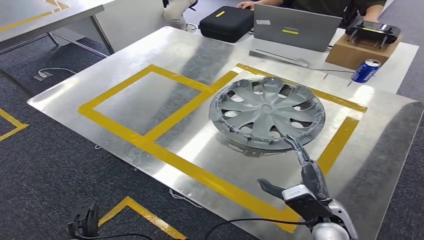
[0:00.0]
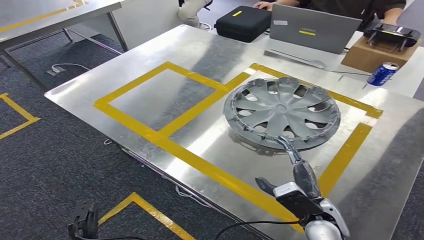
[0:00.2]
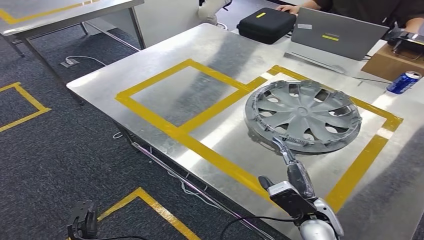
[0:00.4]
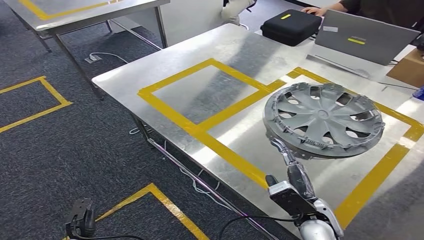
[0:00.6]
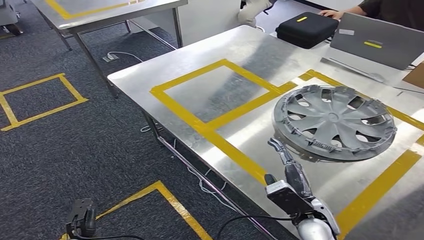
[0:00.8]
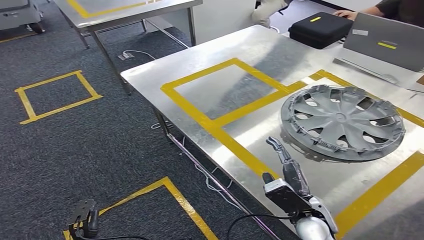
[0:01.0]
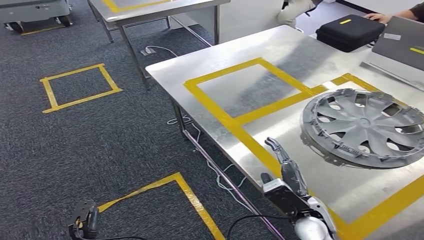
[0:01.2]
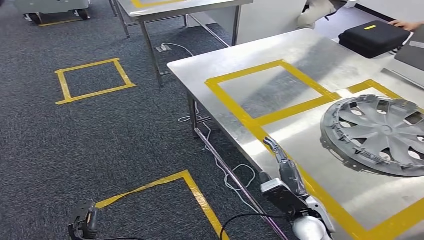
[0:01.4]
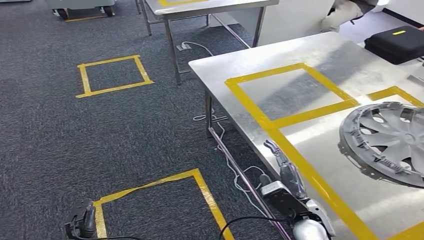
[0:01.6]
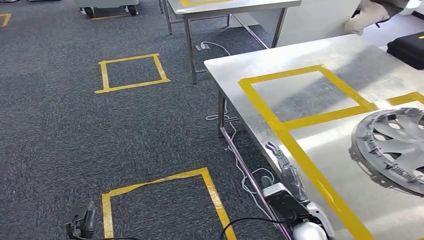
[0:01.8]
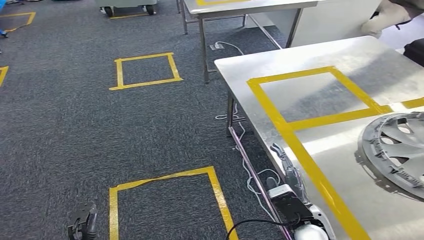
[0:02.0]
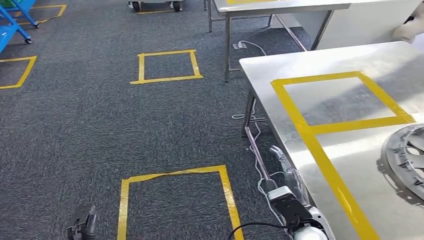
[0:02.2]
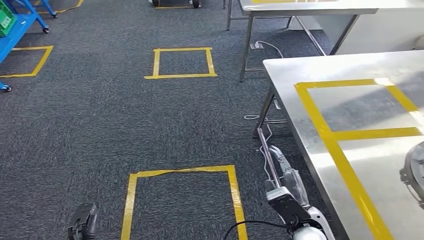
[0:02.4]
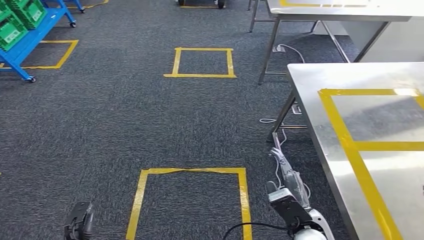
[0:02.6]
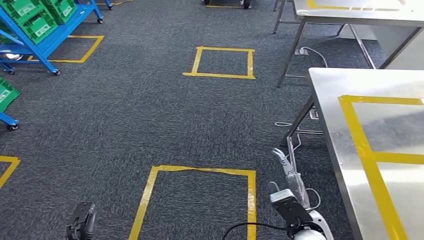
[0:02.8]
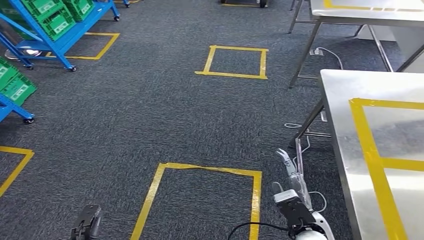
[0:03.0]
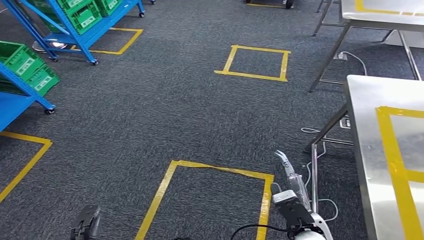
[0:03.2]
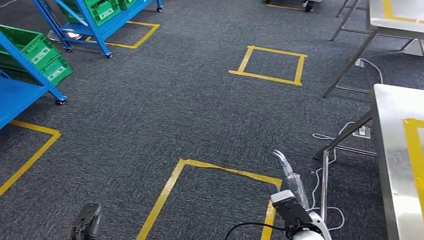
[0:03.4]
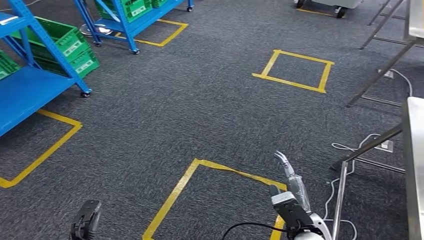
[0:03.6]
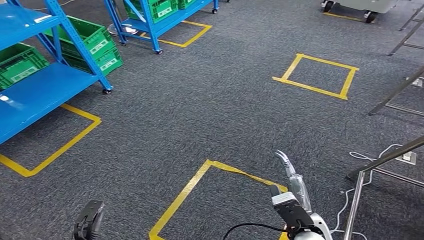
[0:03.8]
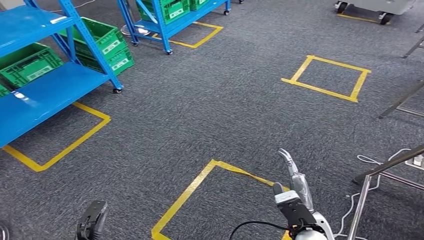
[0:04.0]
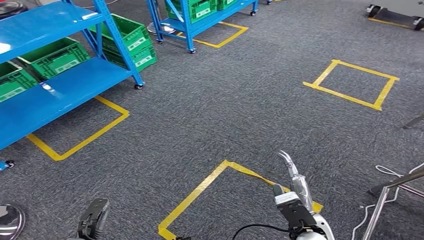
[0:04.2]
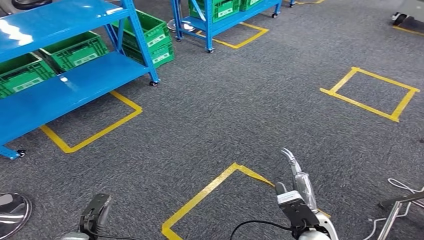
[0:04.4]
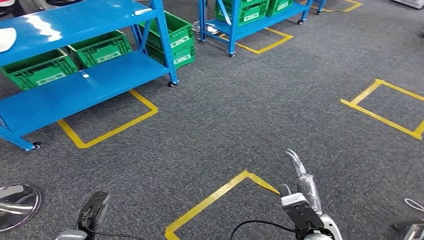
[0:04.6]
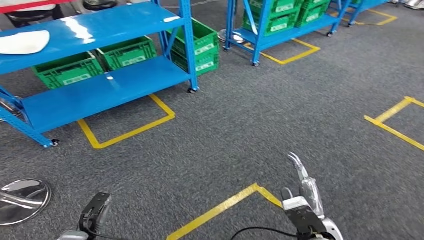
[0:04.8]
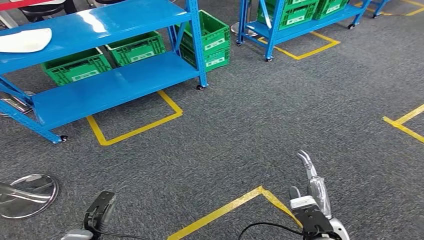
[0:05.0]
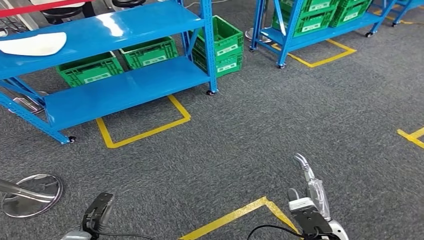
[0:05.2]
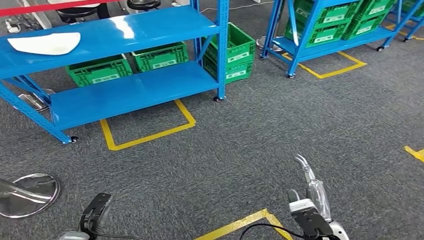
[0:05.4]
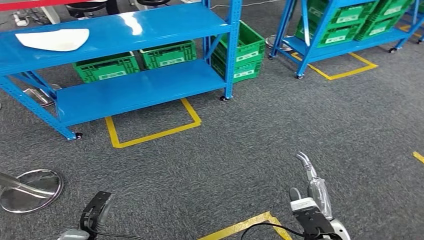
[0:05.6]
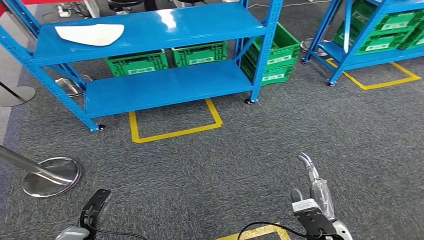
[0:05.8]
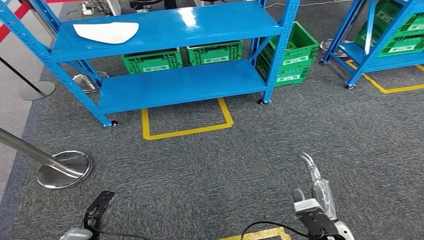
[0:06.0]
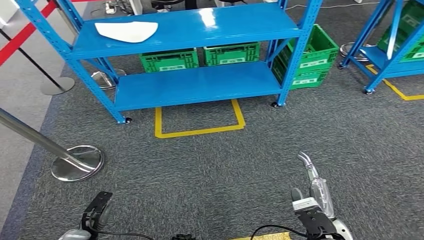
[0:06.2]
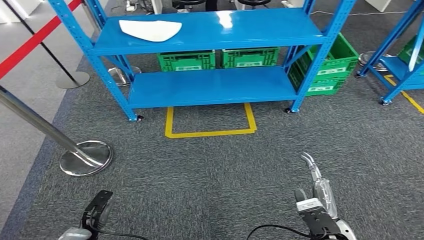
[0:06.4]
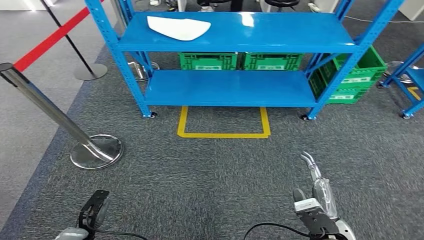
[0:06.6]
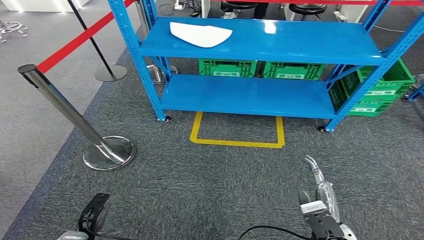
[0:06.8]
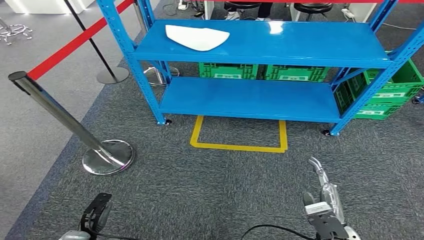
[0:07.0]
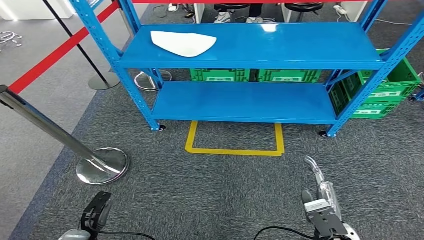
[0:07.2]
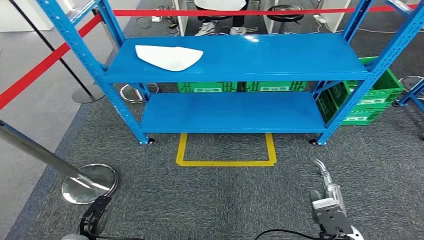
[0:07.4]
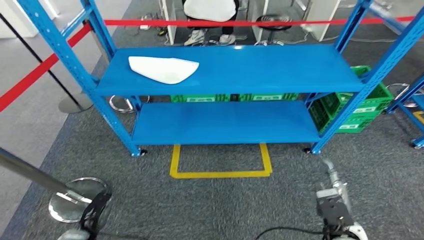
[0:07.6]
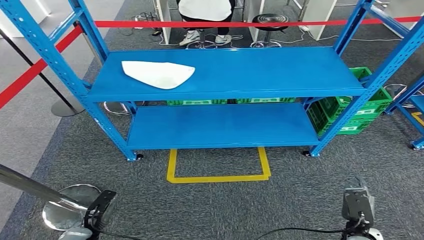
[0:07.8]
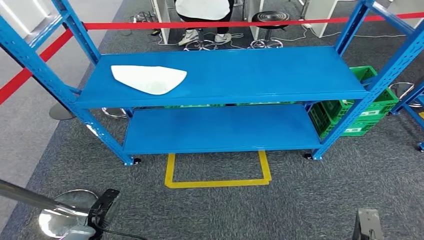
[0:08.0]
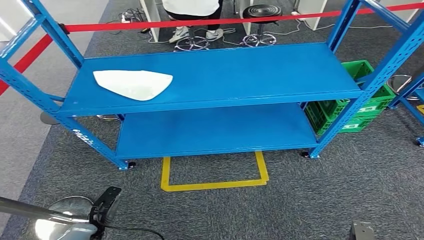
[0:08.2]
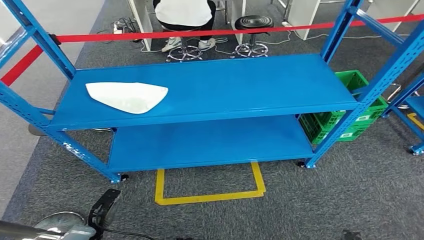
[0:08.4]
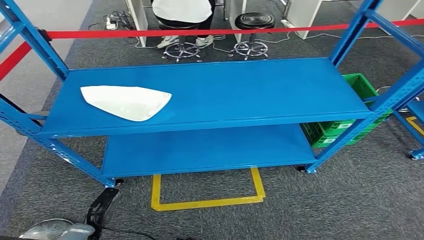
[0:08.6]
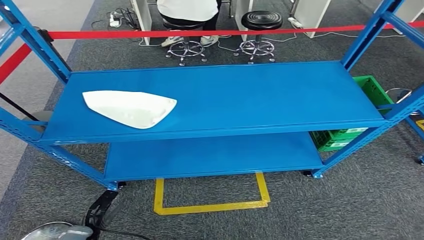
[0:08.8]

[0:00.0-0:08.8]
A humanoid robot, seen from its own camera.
Step, 0:00.0 to 0:08.8: Move to the initial position at the workbench.

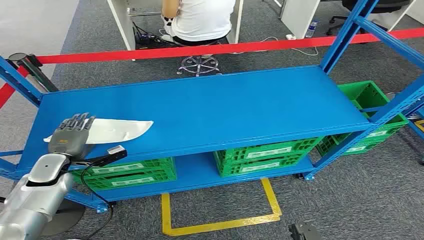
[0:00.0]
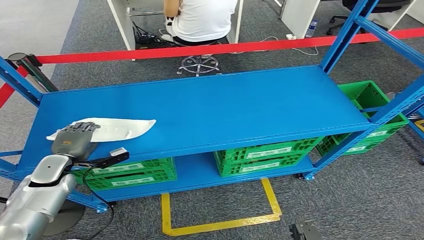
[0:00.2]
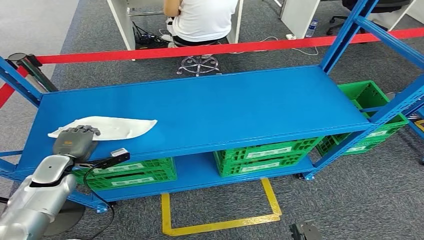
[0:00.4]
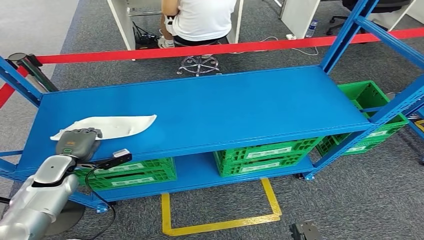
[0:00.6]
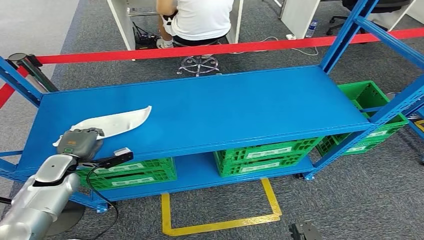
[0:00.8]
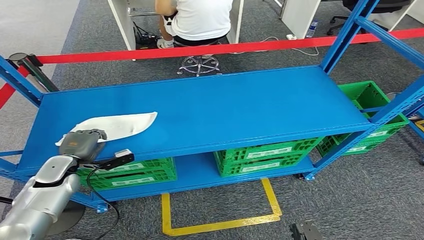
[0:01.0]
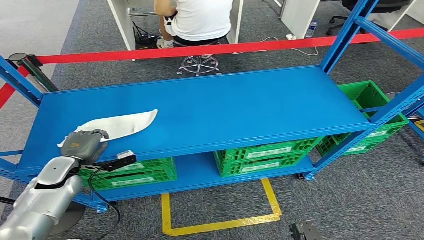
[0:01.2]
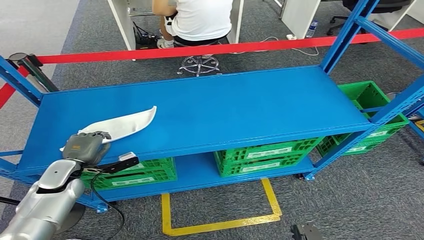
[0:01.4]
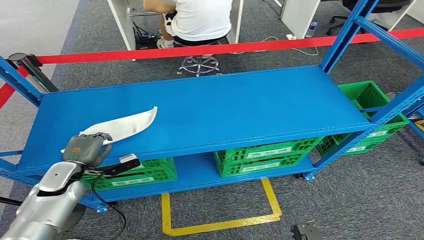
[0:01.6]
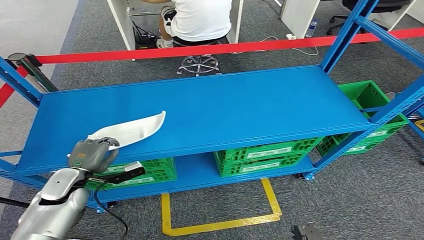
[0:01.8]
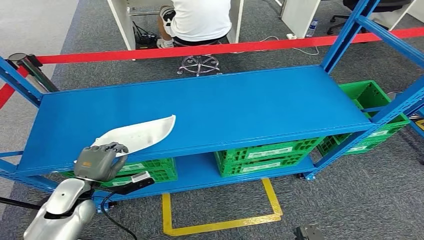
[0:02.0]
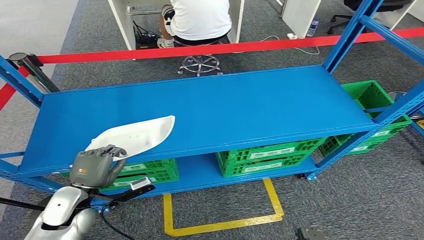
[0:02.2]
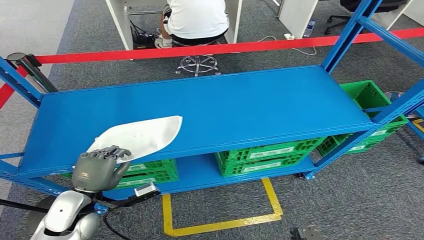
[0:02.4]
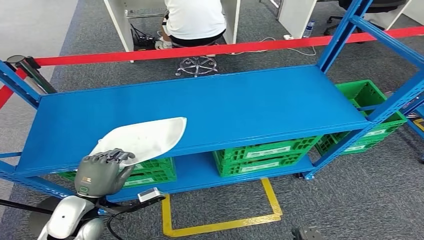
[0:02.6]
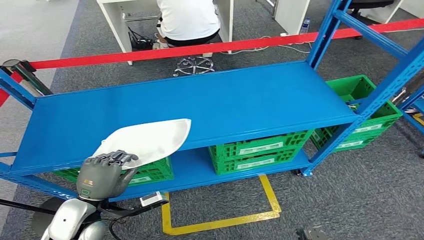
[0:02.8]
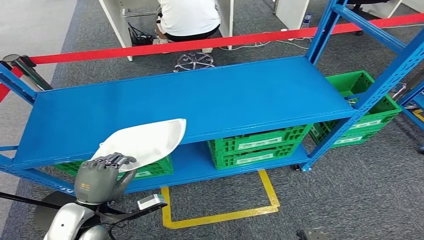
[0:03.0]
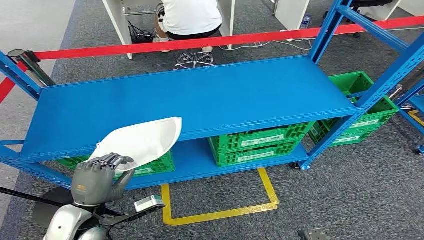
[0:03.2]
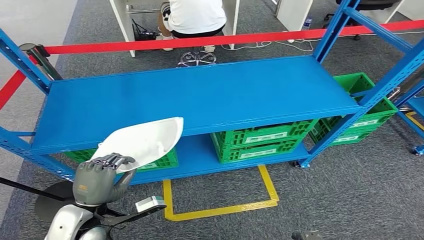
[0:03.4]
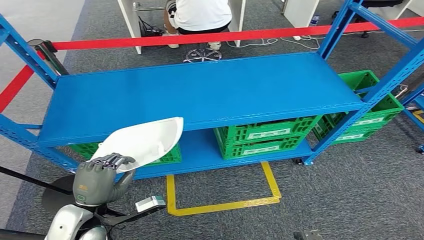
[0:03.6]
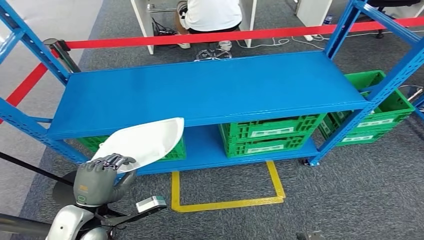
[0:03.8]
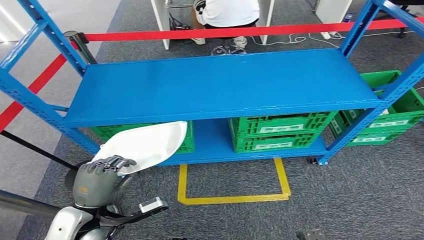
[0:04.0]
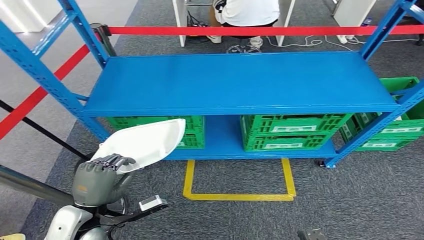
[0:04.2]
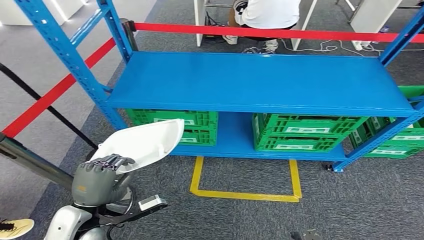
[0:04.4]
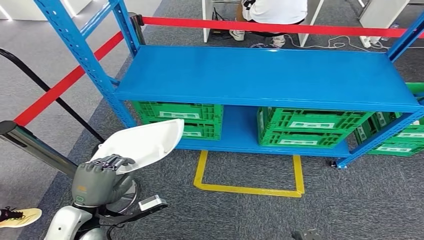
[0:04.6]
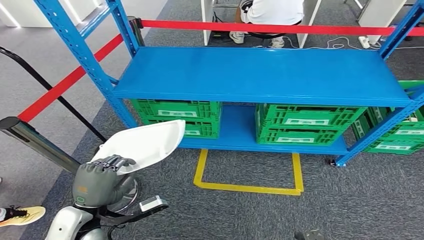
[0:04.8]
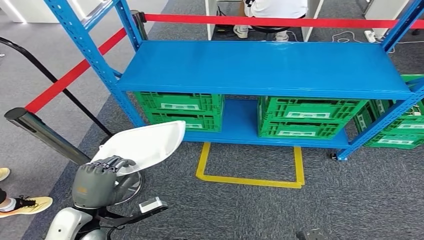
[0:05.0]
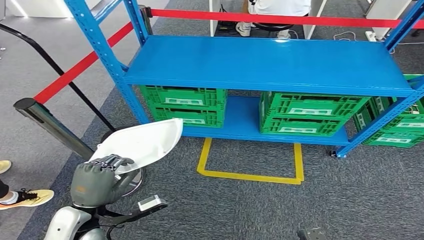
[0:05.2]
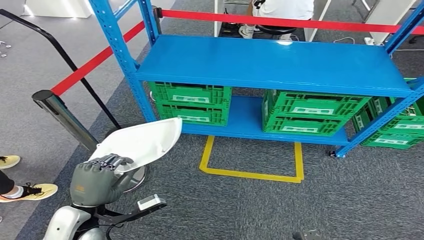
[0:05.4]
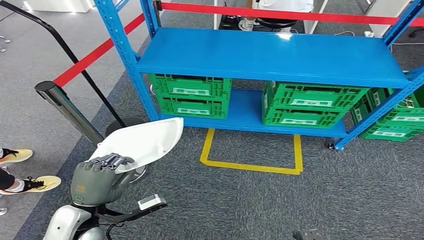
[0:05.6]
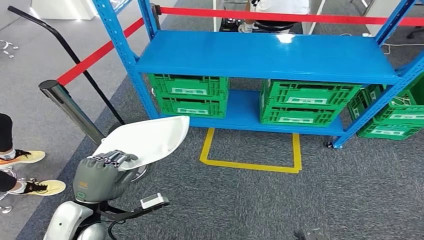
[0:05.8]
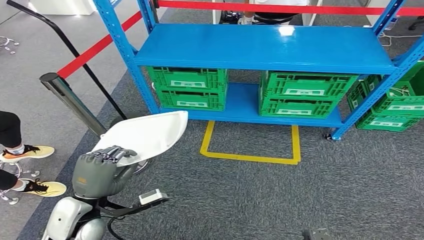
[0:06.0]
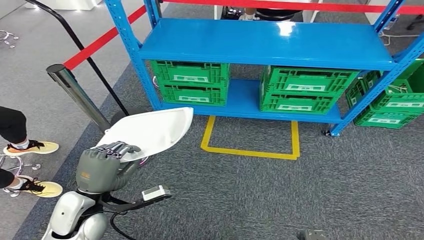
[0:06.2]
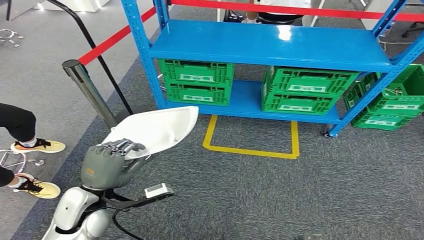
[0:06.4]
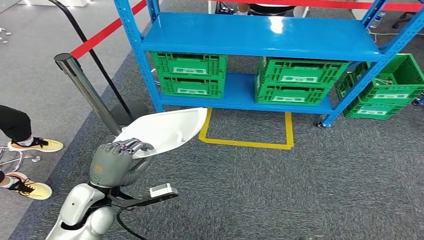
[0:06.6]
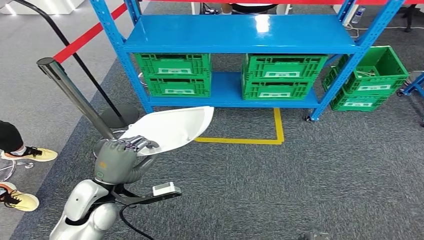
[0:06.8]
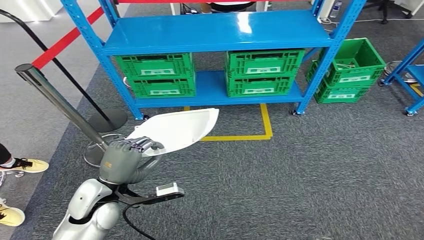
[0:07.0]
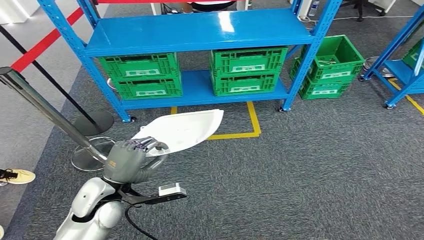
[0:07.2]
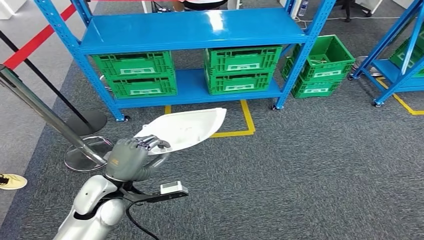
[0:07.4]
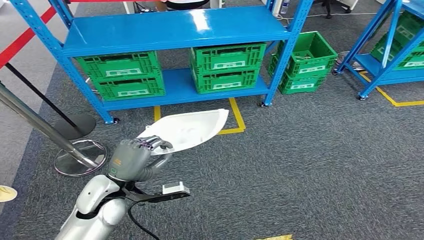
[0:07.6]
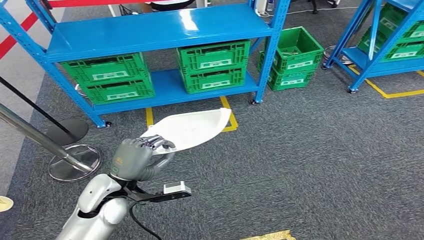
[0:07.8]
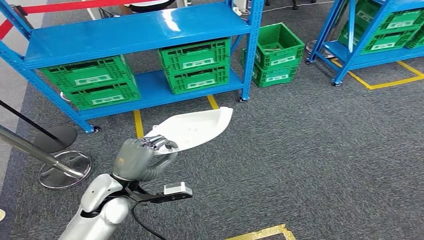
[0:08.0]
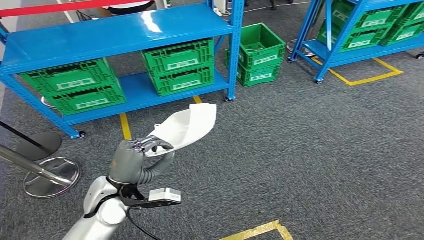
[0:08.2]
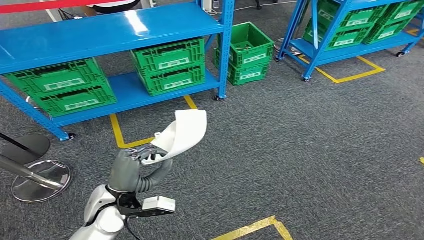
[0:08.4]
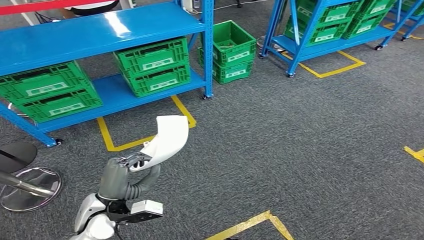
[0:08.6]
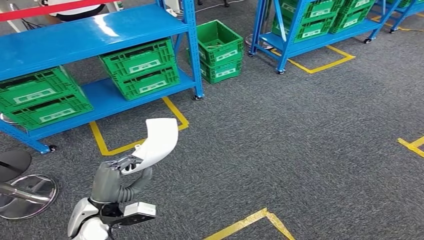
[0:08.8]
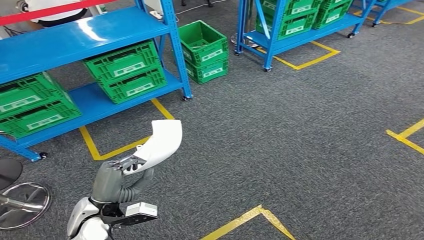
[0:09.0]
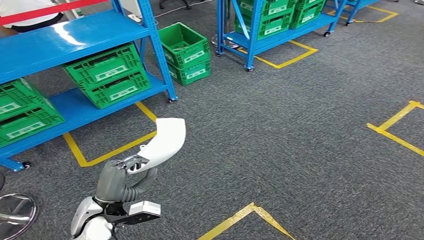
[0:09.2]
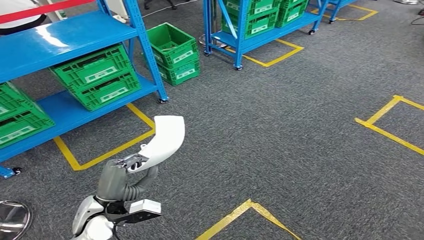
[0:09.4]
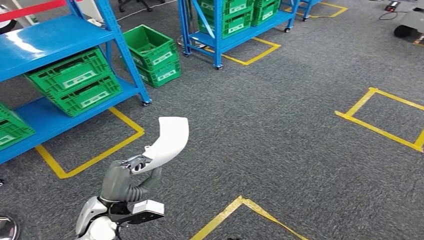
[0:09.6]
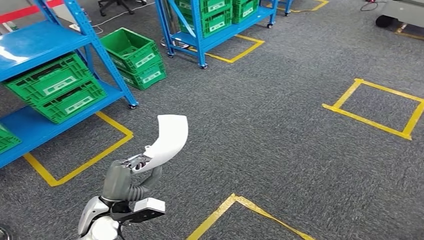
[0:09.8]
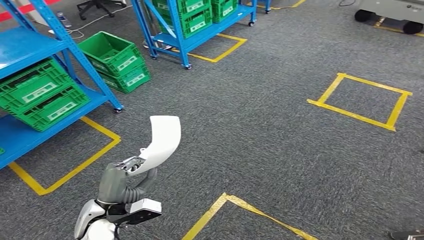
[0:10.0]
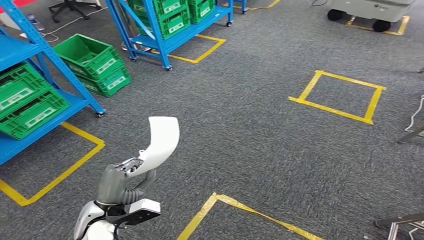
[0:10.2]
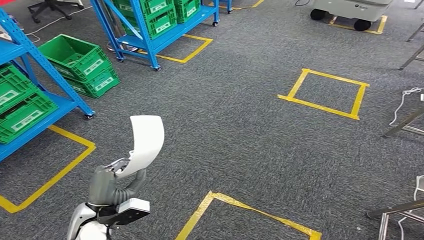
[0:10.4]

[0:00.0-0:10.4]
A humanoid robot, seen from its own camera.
Step, 0:00.0 to 0:03.8: Pick up the small component from the shelf.
